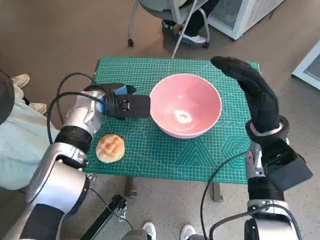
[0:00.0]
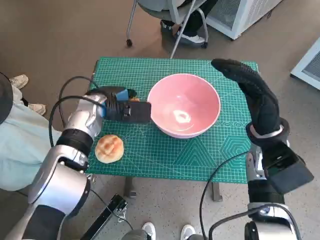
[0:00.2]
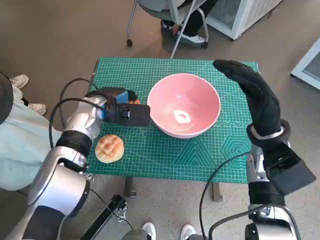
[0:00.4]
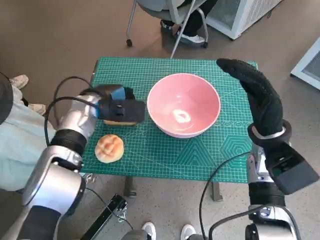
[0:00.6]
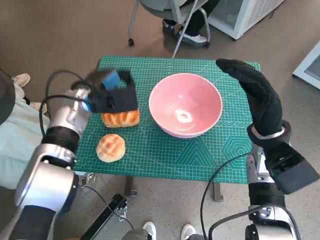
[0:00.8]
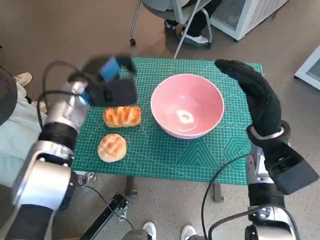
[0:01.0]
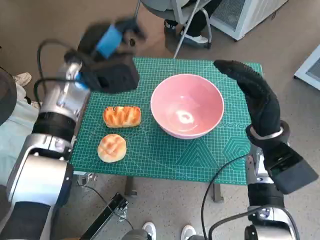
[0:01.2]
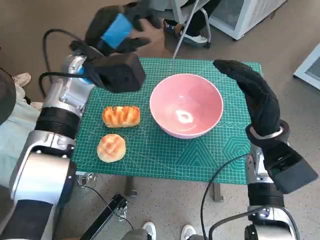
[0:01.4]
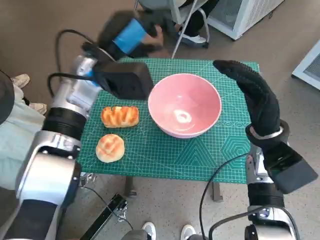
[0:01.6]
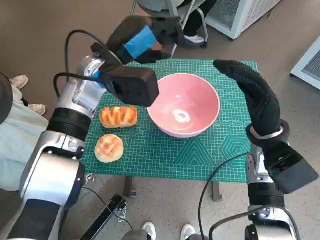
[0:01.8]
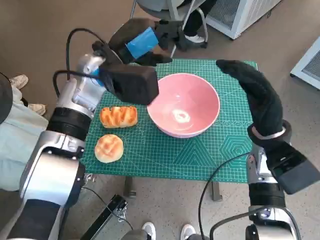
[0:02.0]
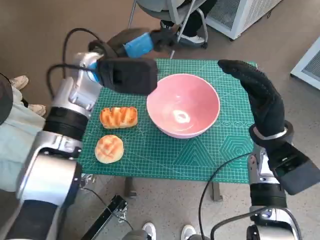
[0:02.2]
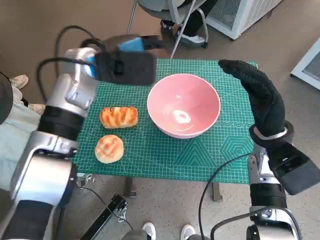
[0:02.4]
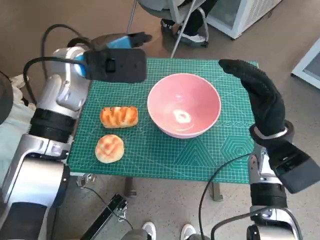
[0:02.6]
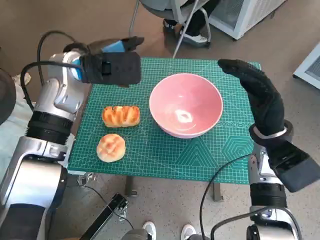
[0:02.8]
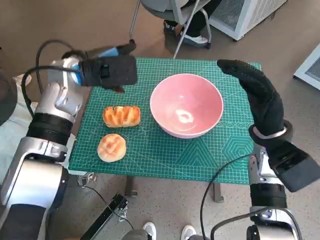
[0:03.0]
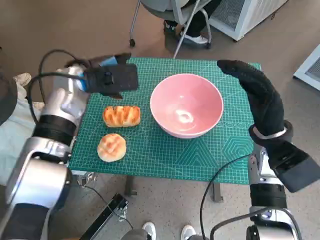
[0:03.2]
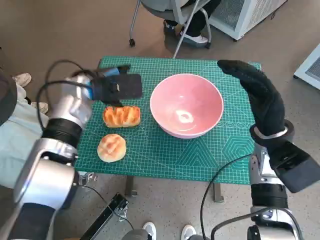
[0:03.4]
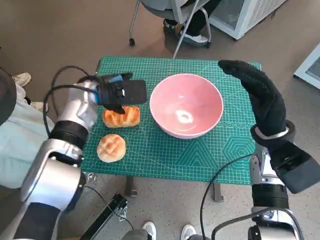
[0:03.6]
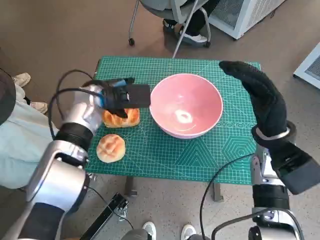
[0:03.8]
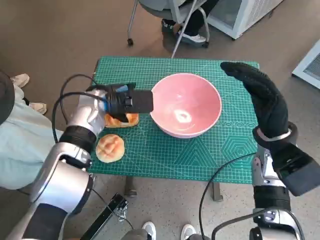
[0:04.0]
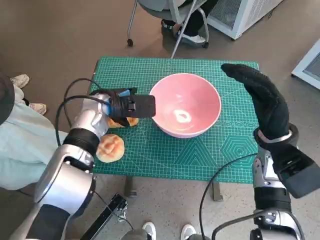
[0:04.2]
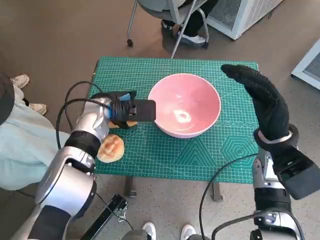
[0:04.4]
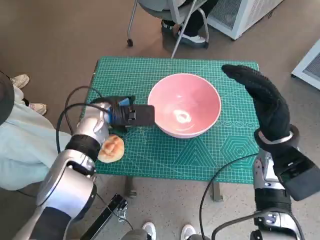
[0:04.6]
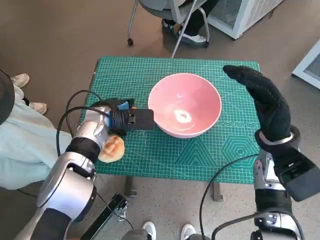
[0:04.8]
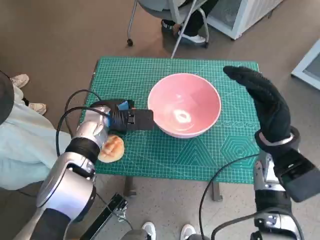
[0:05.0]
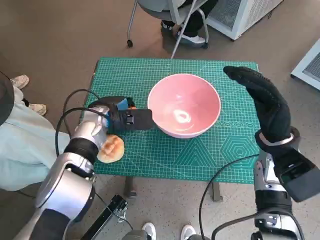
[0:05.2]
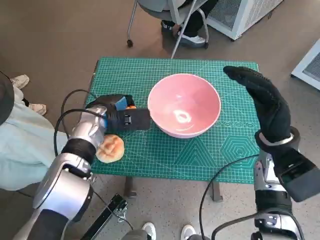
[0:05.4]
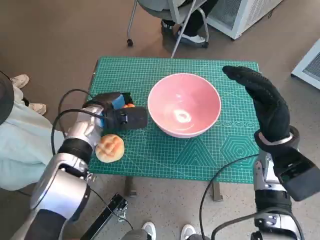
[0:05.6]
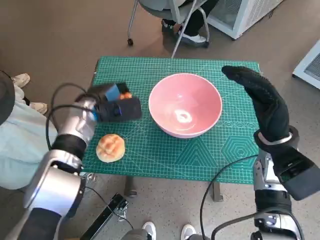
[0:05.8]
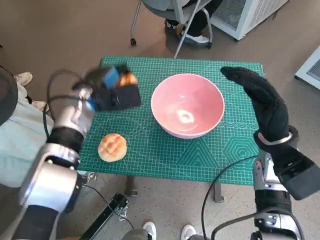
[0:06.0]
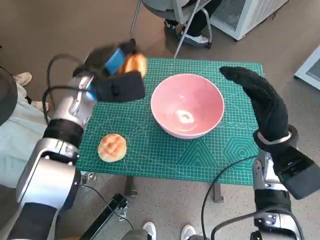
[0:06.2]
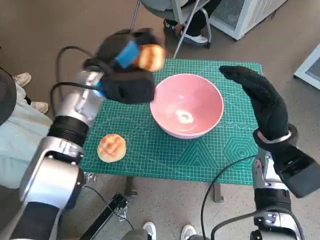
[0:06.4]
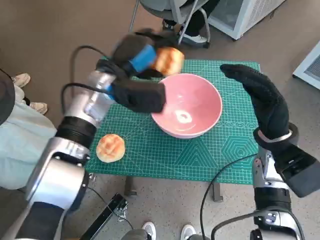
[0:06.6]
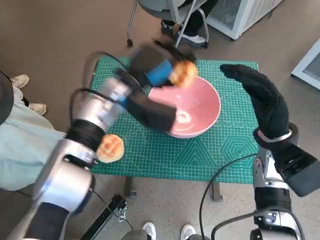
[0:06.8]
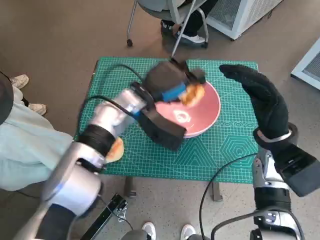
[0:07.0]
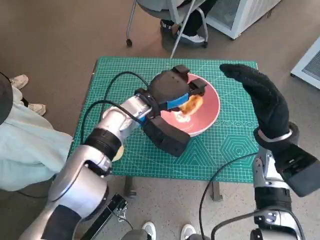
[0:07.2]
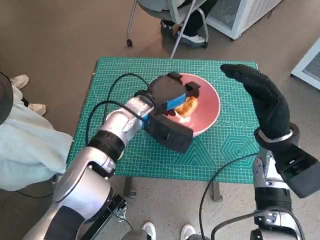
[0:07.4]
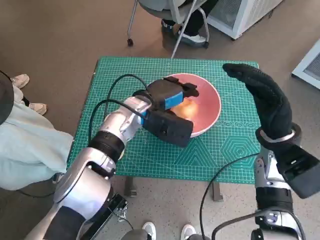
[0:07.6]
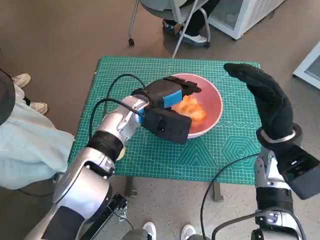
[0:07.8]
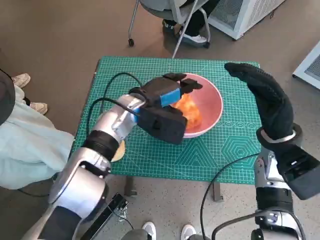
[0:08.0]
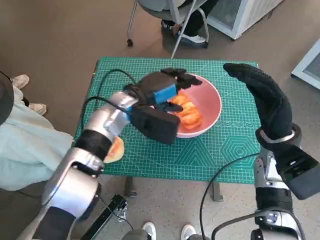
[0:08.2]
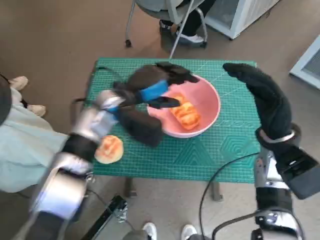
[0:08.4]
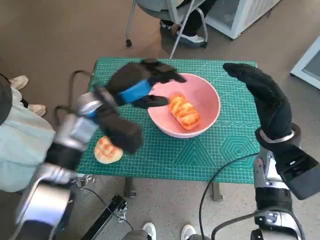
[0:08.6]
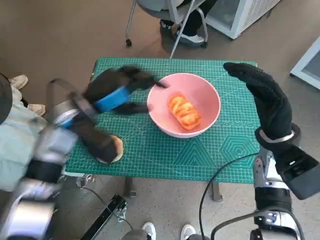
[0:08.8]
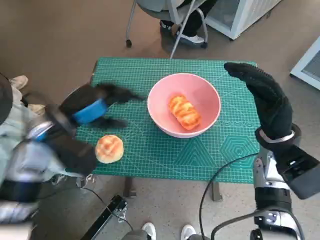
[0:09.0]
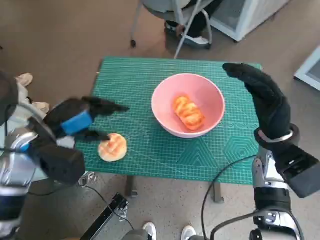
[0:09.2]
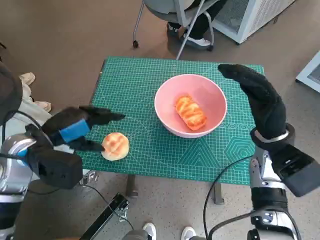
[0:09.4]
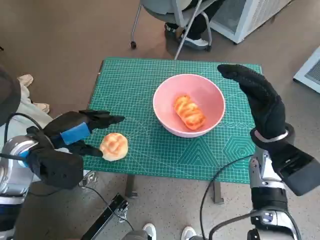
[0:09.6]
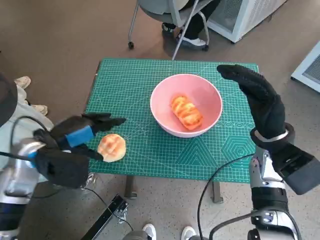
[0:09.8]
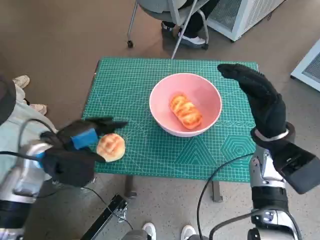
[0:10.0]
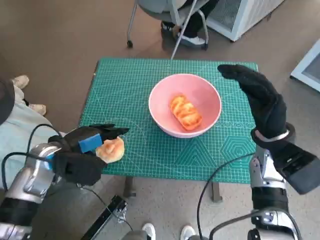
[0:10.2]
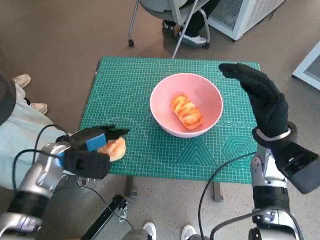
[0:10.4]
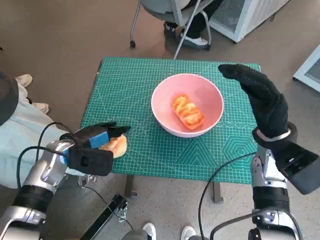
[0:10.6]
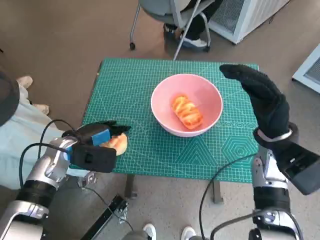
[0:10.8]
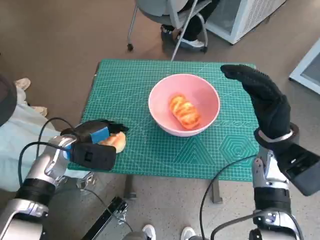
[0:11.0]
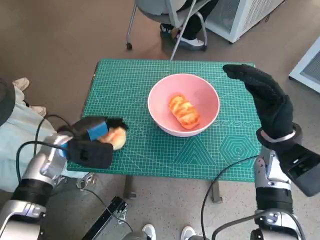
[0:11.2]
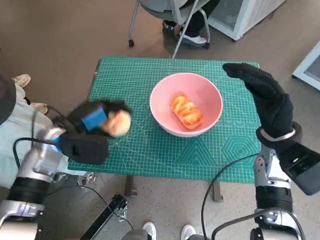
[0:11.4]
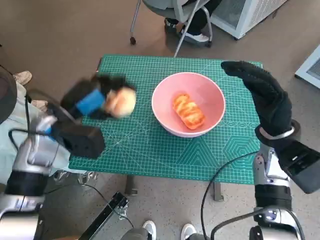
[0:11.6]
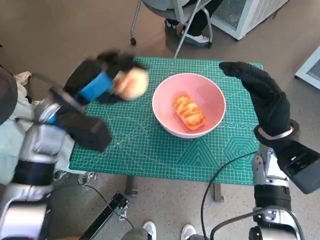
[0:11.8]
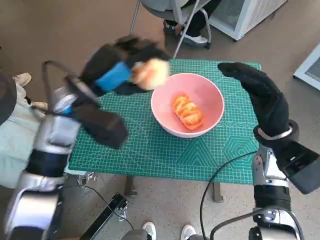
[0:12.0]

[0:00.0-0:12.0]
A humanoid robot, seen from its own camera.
Task of the whole recording: Push the bowl to the center of the table and put the bread into the bowl.
Step, 0.0 to 5.2 s: Grasp the long bread with left hand.
Step, 5.4 to 7.6 s: Place the long bread in pink bowl with left hand.
Step, 7.8 to 11.0 s: Grasp the round bread with left hand.
0.0 to 1.6 s: The left hand heads upward, covering approximately 10 cm.
3.0 to 4.4 s: The left hand travels downward by approximately 10 cm.
6.0 to 7.6 s: The left hand is displaced to the right by about 10 cm.
7.6 to 9.0 s: The left hand heads to the left and backward, covering approximately 15 cm.
9.0 to 10.4 s: The left hand is displaced downward by about 10 cm.
10.4 to 12.0 s: The left hand is displaced upward and to the right by about 15 cm.

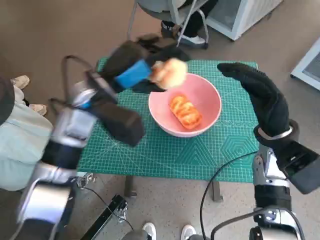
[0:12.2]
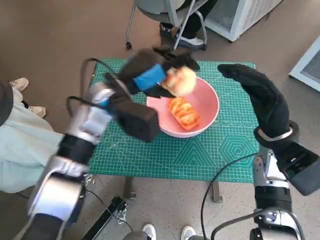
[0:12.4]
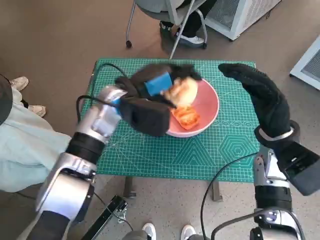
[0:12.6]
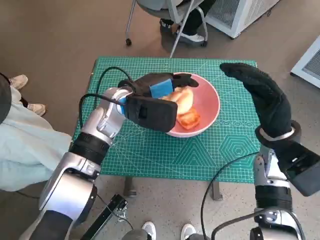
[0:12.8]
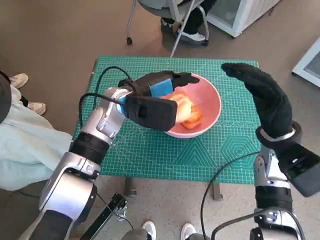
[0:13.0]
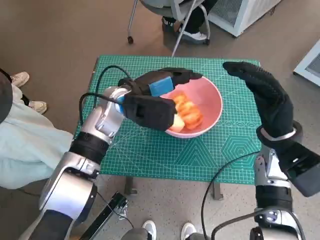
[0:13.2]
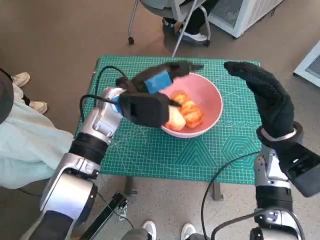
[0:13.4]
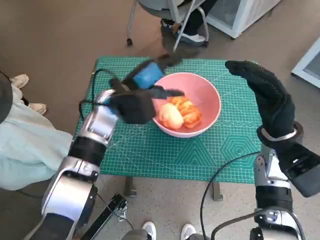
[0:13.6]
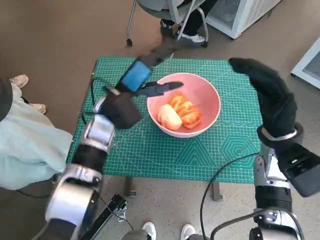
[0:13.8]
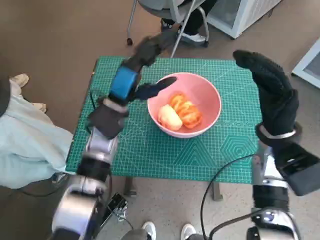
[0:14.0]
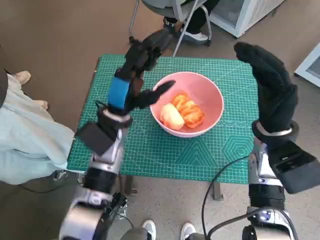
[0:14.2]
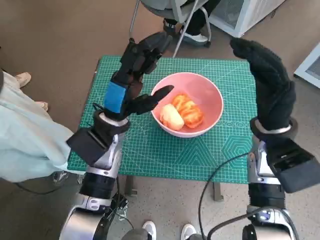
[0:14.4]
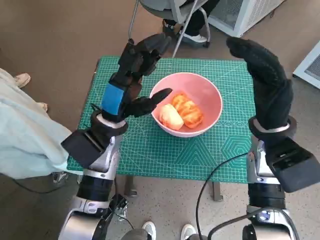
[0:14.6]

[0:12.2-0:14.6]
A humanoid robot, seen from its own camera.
Task of the whole recording: Push the bowl to the center of the table and put the bread into the bowl.
12.2 to 13.4 s: The left hand changes place by roughly 5 cm.
13.4 to 14.6 s: The left hand heads backward, covering about 5 cm.

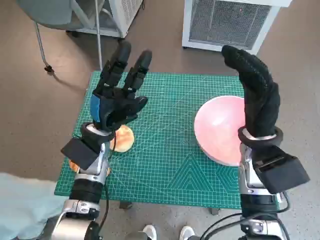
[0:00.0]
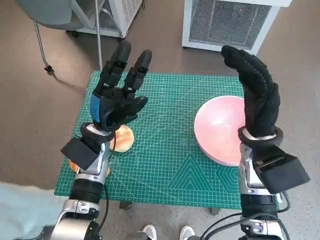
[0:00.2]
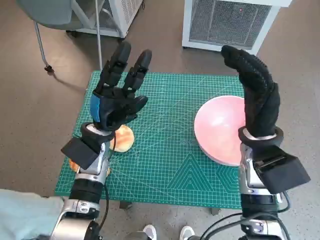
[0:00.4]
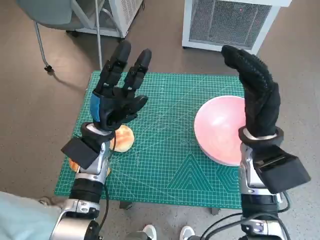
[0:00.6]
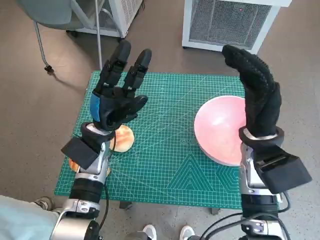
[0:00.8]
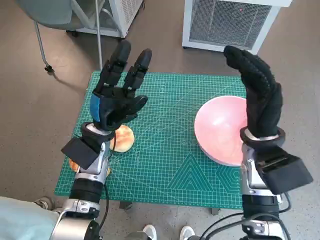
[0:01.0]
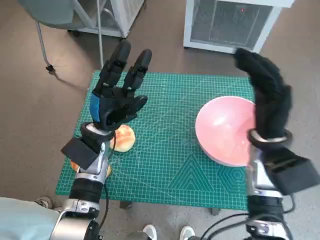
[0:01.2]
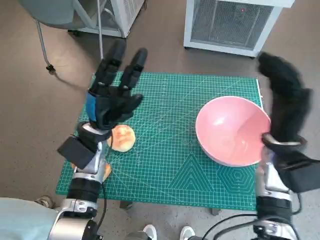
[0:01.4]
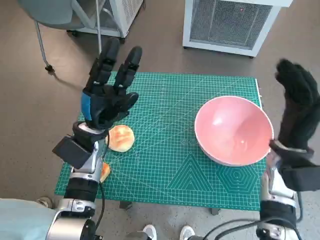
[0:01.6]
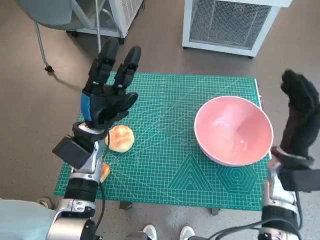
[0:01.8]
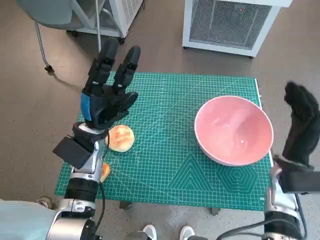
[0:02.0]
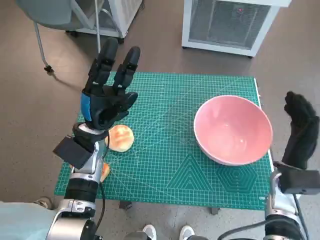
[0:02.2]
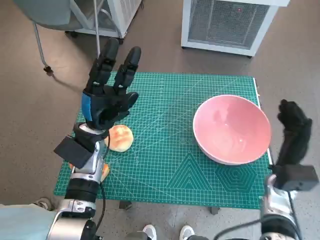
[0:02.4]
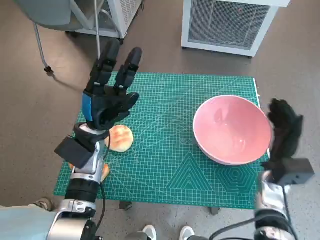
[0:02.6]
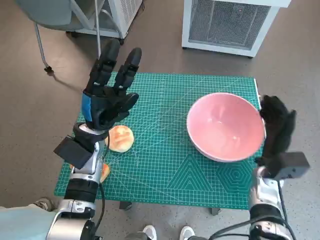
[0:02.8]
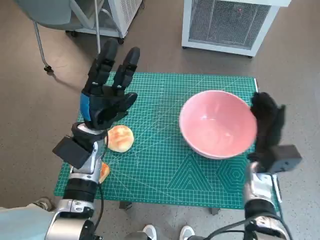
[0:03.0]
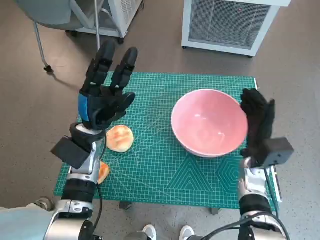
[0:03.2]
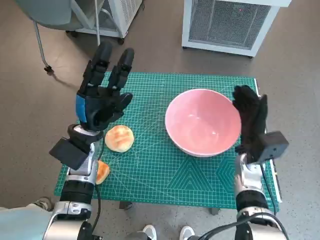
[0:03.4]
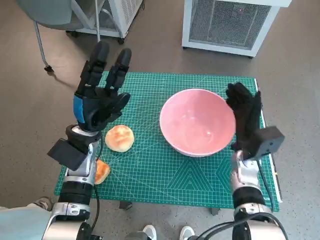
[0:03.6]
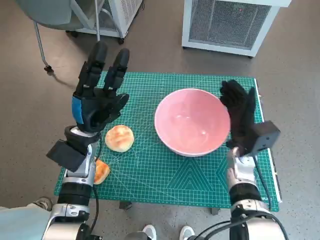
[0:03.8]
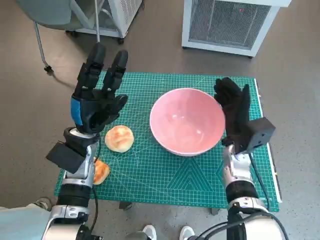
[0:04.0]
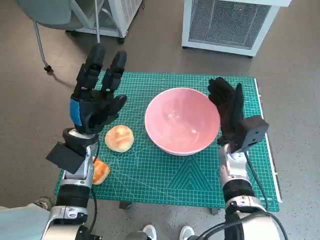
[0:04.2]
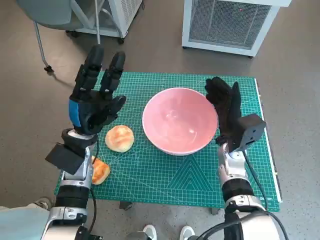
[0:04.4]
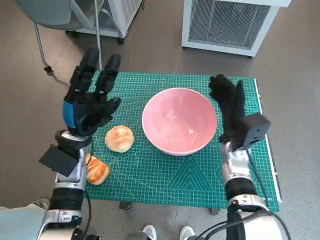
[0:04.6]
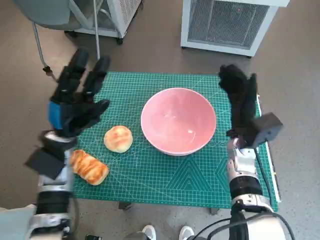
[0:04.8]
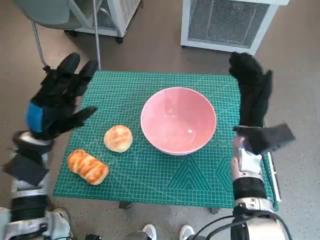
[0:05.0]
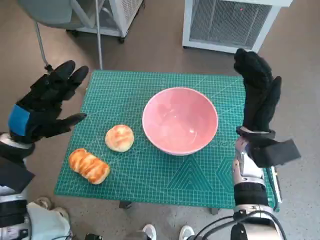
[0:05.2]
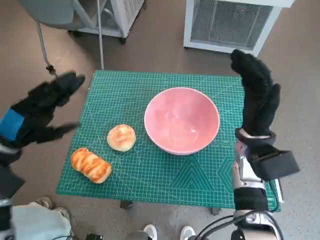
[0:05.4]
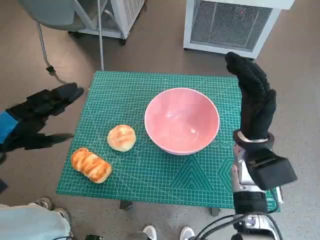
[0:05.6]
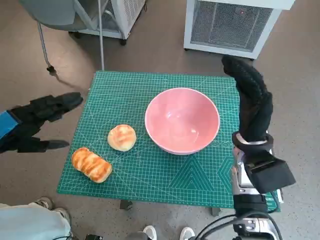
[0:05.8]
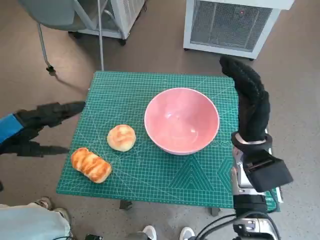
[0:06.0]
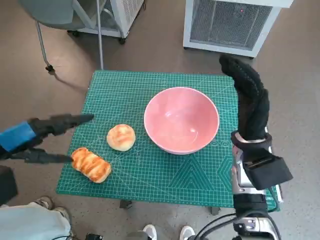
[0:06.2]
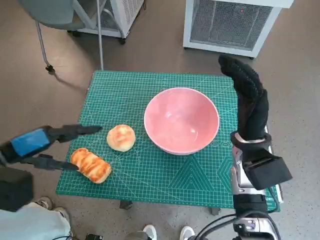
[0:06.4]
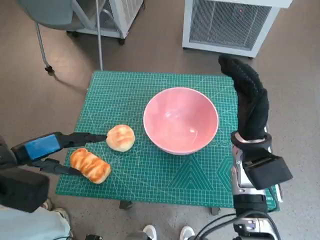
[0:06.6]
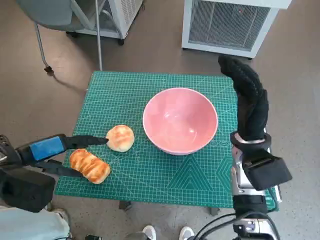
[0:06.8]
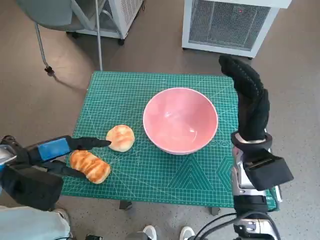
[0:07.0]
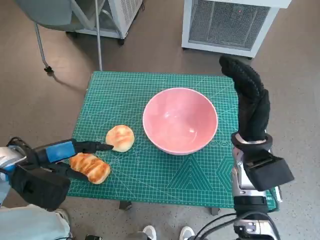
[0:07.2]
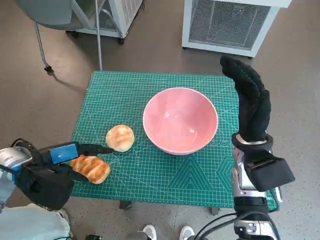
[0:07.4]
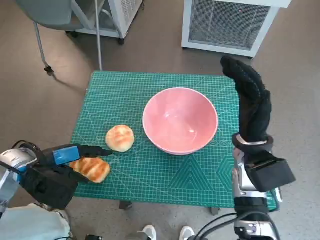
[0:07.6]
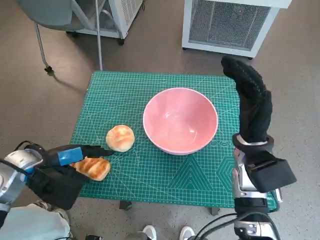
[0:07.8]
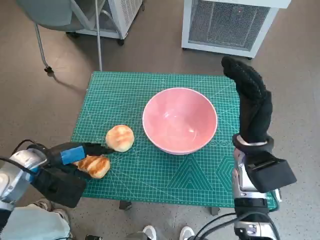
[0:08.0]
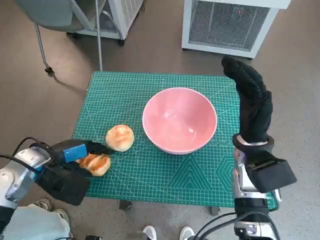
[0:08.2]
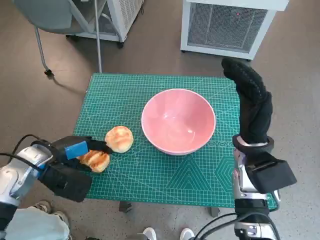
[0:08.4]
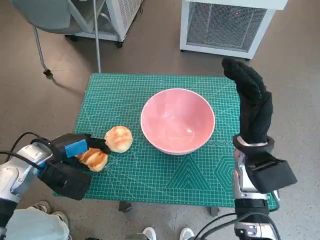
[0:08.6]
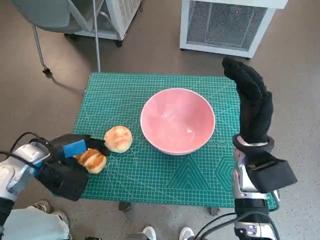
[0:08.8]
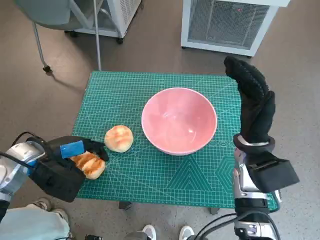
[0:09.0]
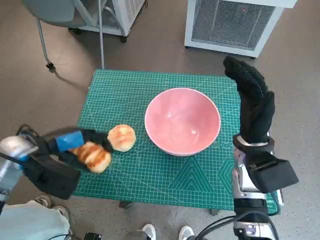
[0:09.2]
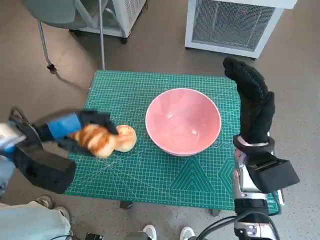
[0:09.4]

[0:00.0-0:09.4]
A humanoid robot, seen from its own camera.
Task of the whole recording: Push the bowl to the center of the table and put the bread into the bowl.
Step, 0.0 to 4.6 s: Move the pink bowl to the center of table with right hand.
Step, 4.8 to 8.2 s: Grasp the long bread with left hand.
1.6 to 3.2 s: The right hand heads downward, covering approximately 10 cm.
3.2 to 4.8 s: The right hand ends up approximately 5 cm from where it was; the left hand moves about 5 cm.
4.8 to 6.2 s: The right hand moves approximately 5 cm. Meanwhile the left hand shifts roughly 15 cm to the left, upward and backward.
6.2 to 7.8 s: The left hand is displaced downward by roughly 10 cm.
7.8 to 9.4 s: The left hand heads upward, covering approximately 5 cm.
